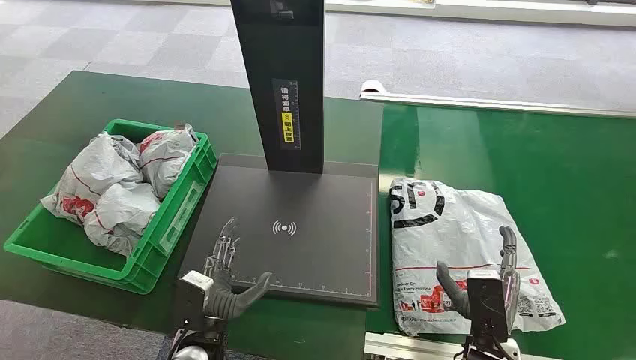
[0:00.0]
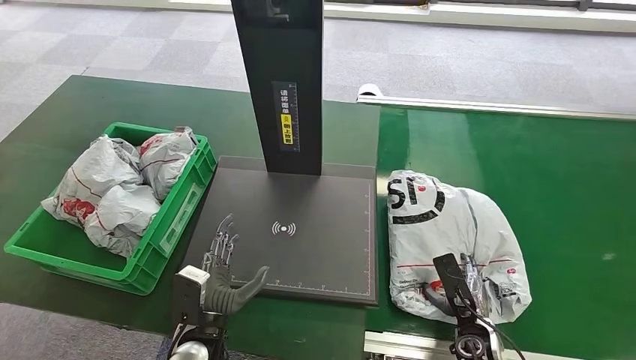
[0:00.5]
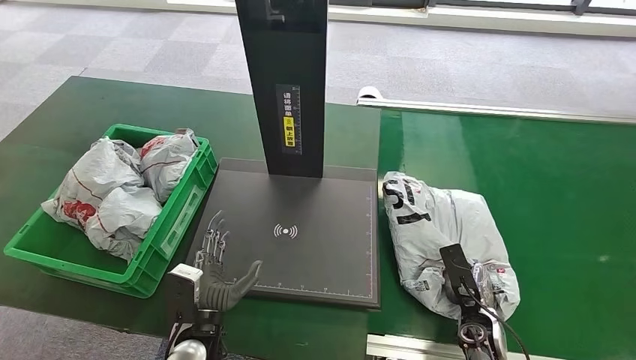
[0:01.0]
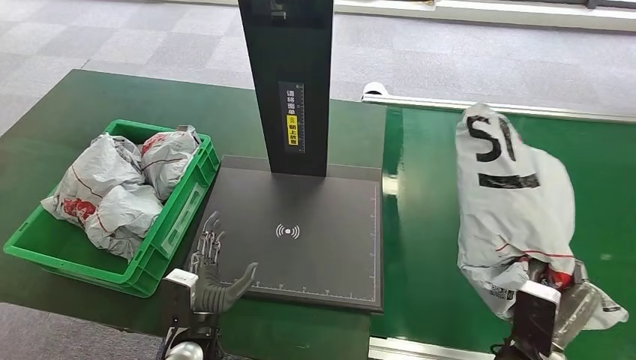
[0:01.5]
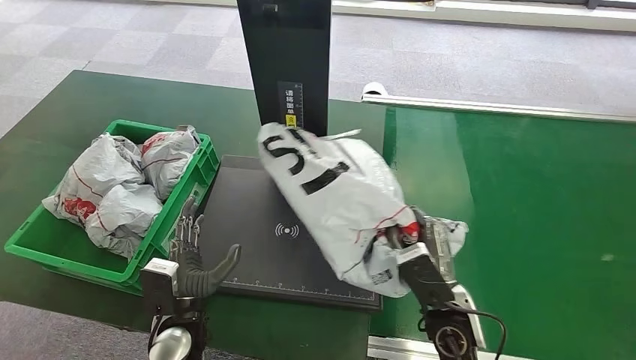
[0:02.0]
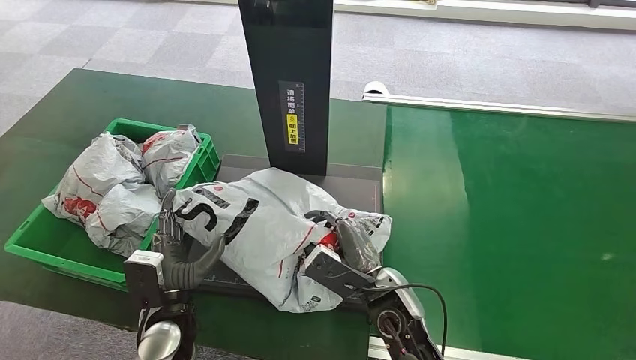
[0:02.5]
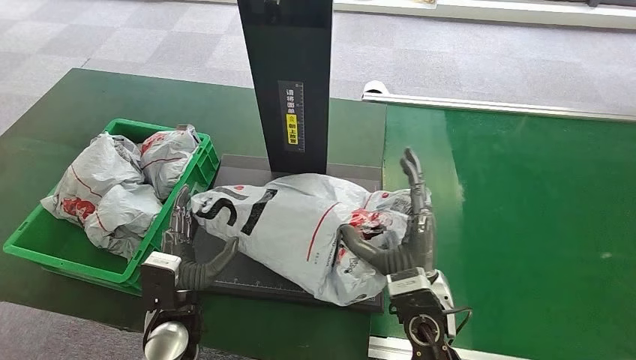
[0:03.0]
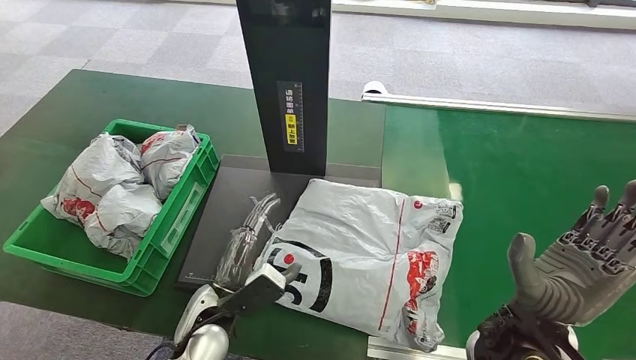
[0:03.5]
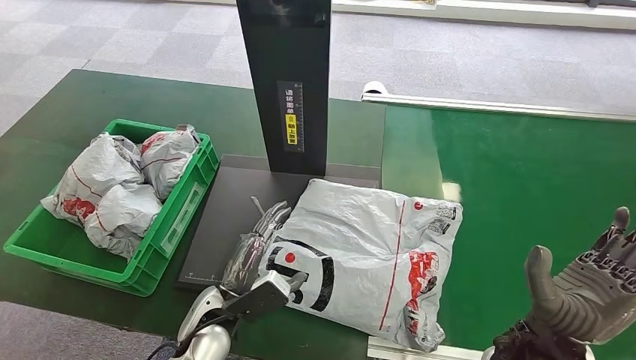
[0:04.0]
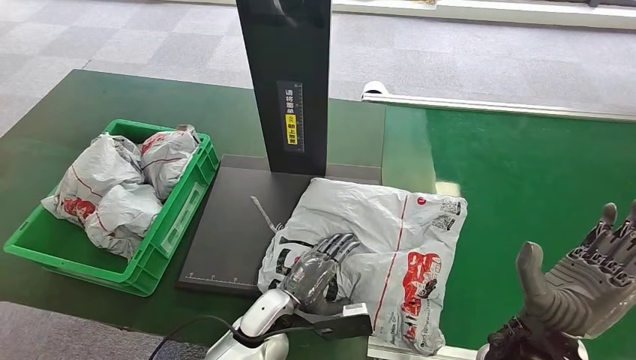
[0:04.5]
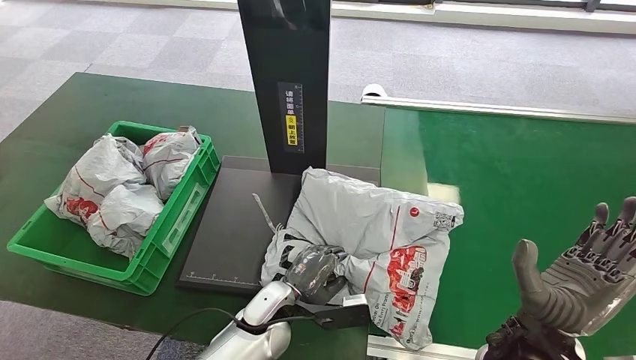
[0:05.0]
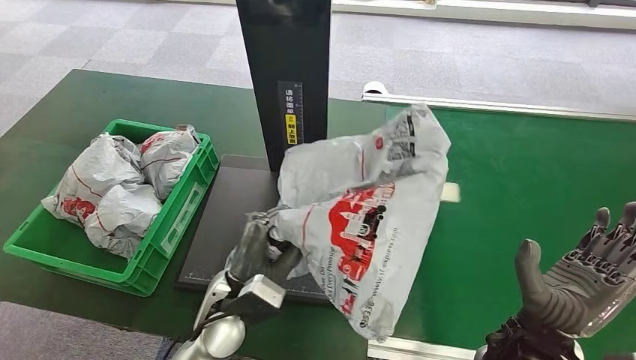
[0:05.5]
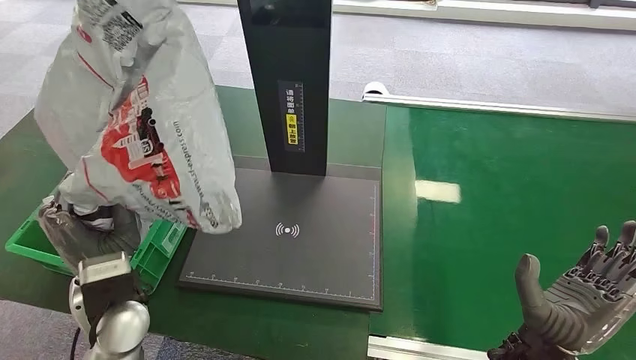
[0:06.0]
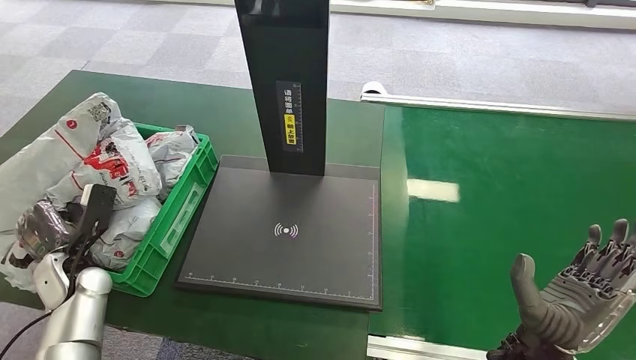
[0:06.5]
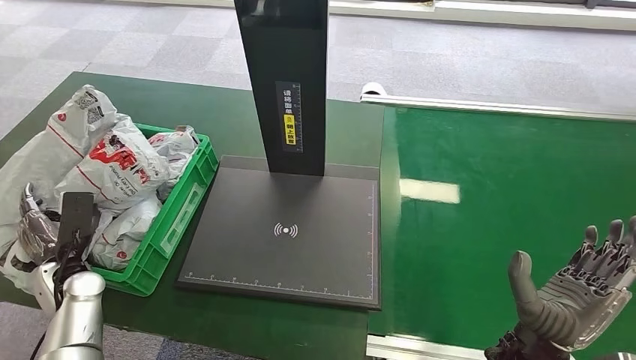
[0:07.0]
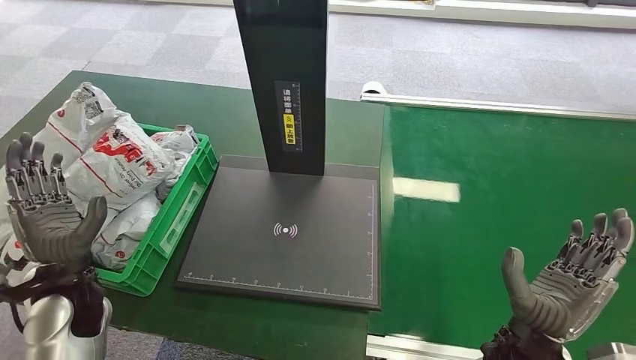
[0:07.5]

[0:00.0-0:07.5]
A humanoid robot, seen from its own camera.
Step, 0:00.0 to 0:01.0: Pick up the package from the conveyor belt.
Step, 0:01.5 to 0:03.5: Place the package onto the inbound machine.
Step, 0:04.0 to 0:05.5: Pick up the package from the inbound machine.
Step, 0:06.0 to 0:07.5: Place the package into the parcel locker.

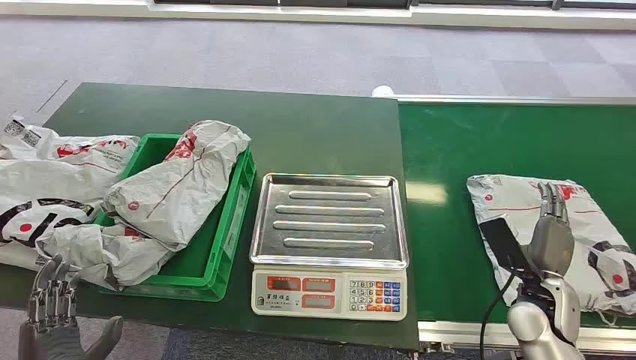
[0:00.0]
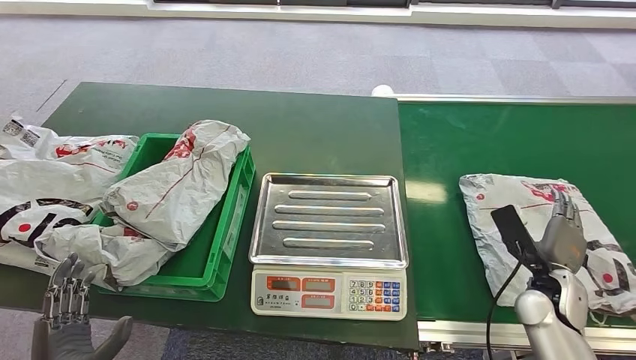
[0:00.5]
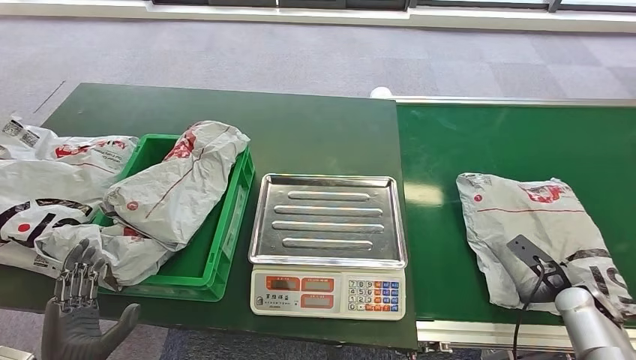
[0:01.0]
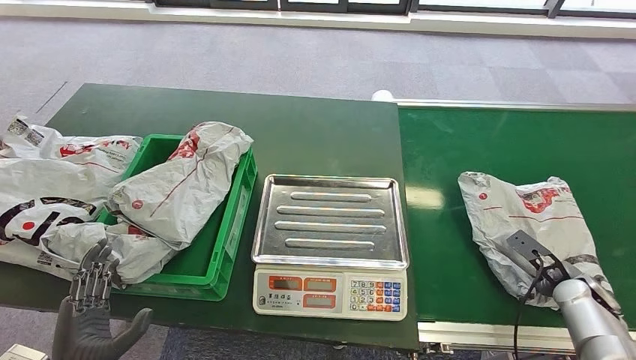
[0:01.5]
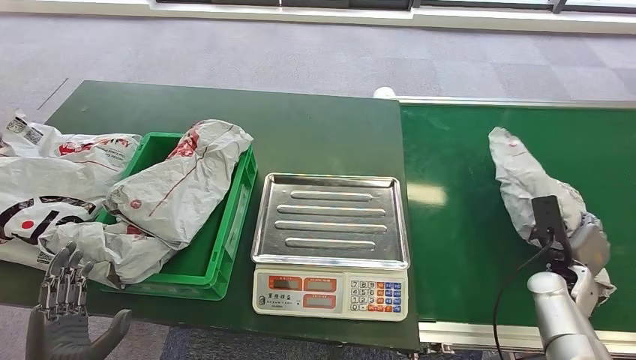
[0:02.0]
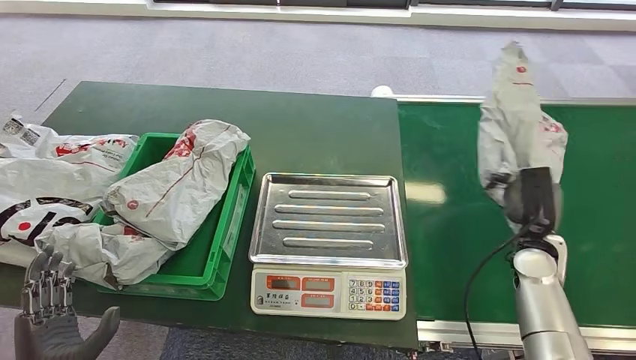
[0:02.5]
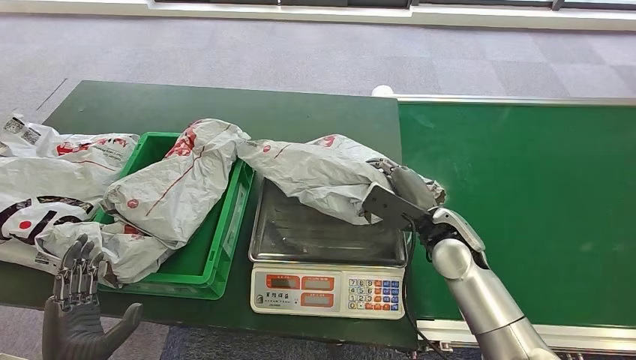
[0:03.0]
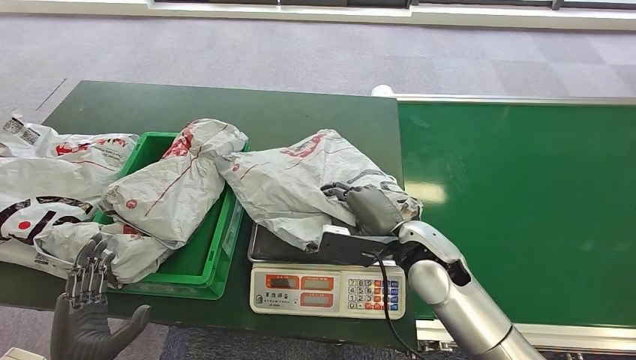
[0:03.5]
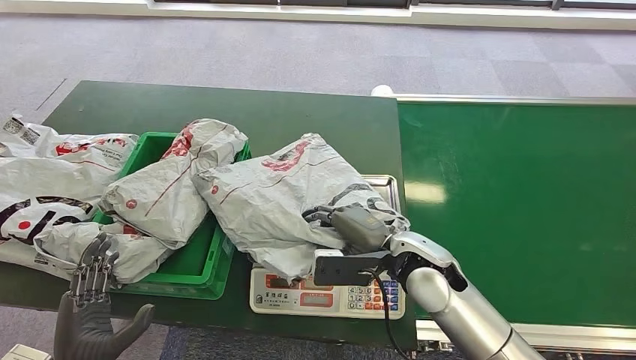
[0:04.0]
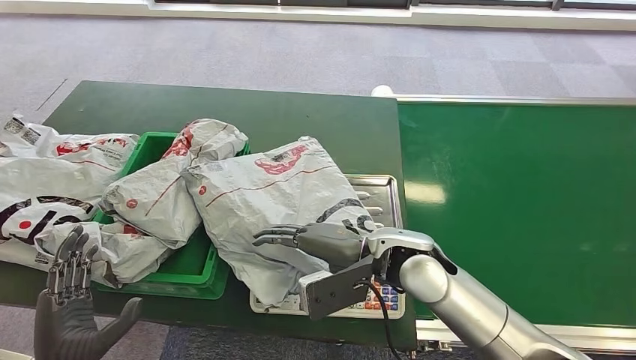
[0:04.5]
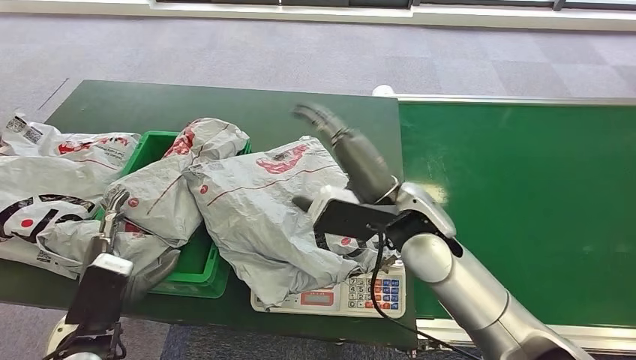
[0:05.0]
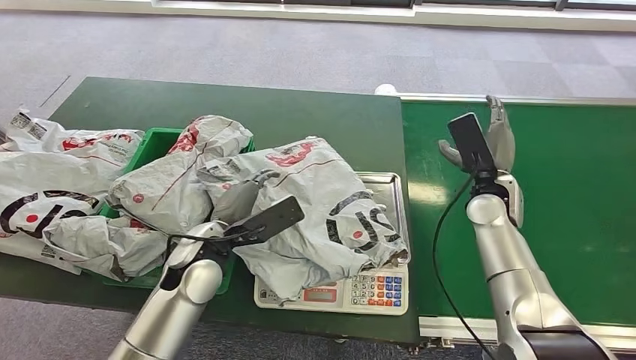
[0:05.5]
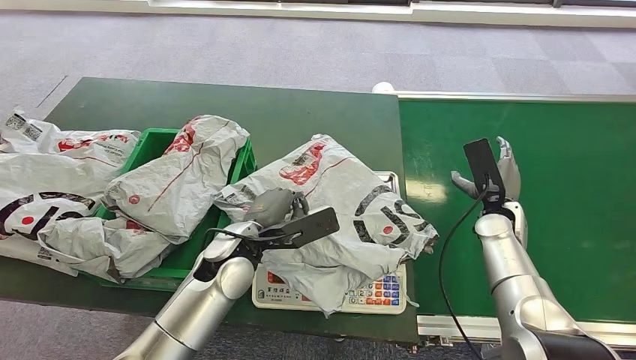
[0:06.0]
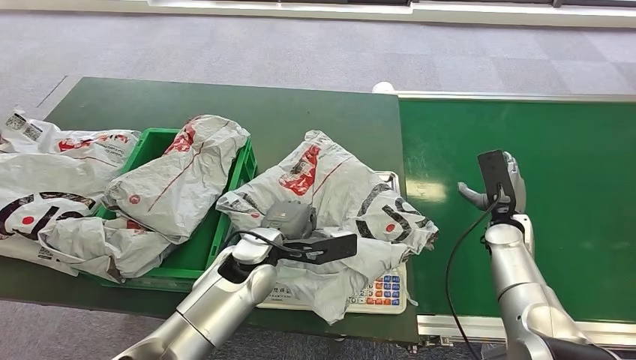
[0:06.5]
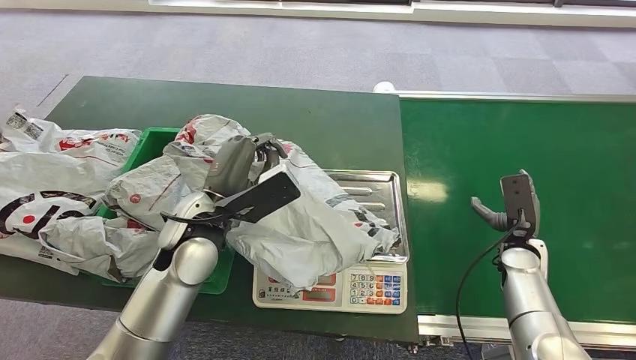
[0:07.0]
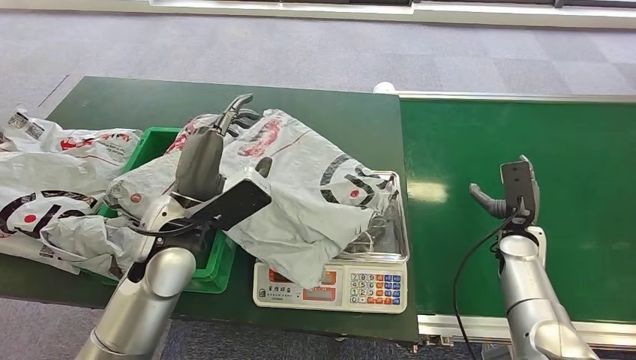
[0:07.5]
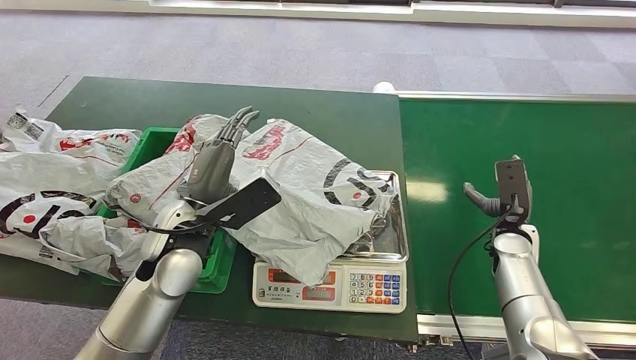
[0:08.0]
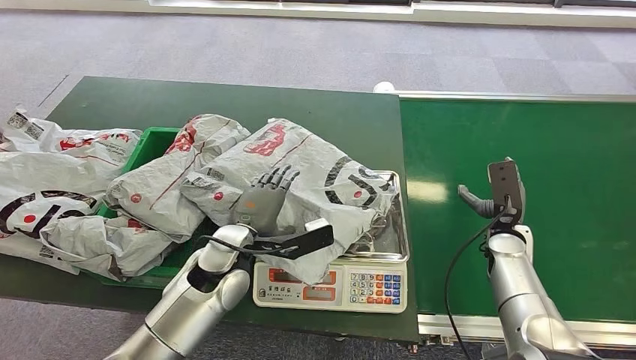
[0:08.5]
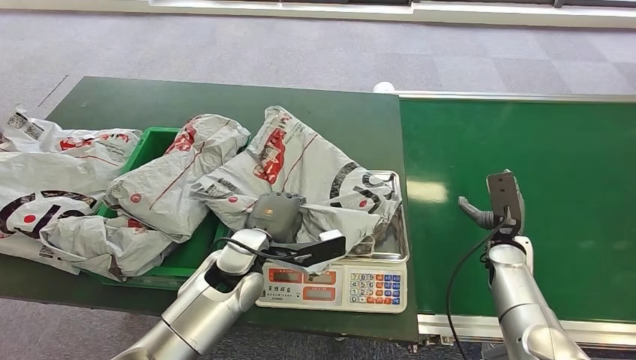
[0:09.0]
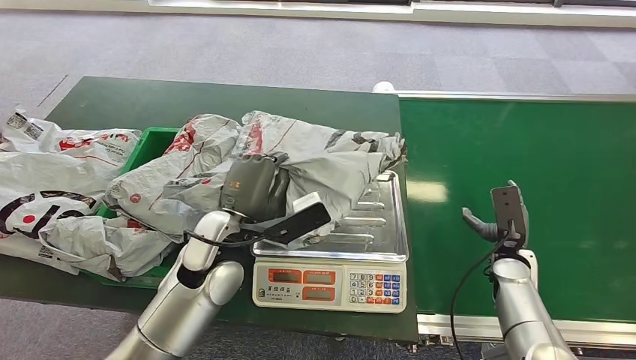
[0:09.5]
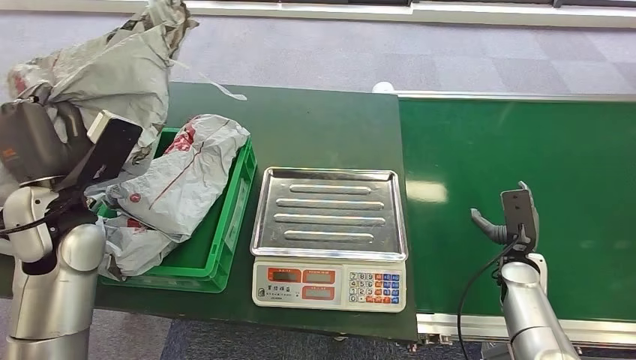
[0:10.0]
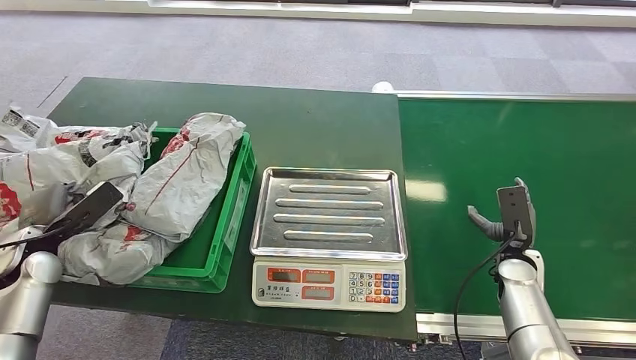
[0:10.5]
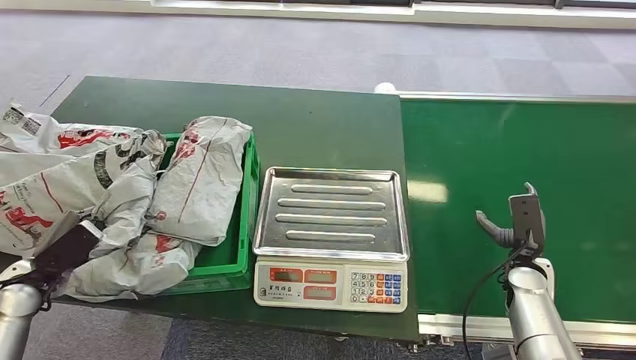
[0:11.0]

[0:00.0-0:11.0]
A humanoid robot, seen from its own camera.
Step, 0:00.0 to 0:02.0: Pick up the package from the conveyor belt.
Step, 0:02.5 to 0:05.0: Place the package onto the inbound machine.
Step, 0:08.0 to 0:09.5: Pick up the package from the inbound machine.
Step, 0:10.0 to 0:10.5: Place the package into the parcel locker.
0:07.5 to 0:09.0: The left hand goes about 15 cm downward and to the right.
